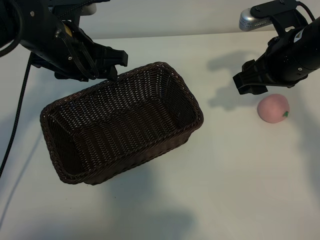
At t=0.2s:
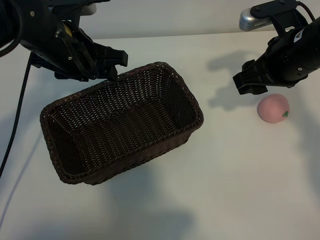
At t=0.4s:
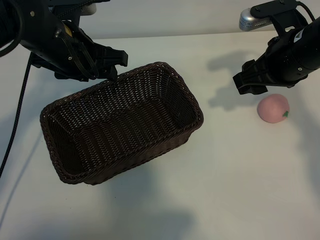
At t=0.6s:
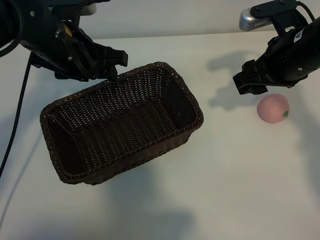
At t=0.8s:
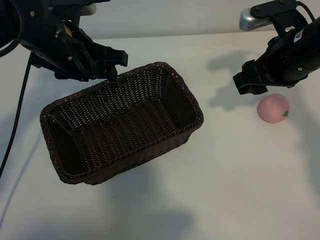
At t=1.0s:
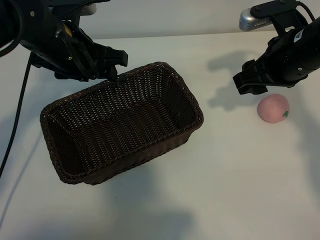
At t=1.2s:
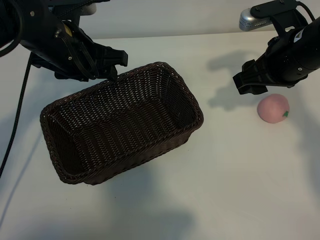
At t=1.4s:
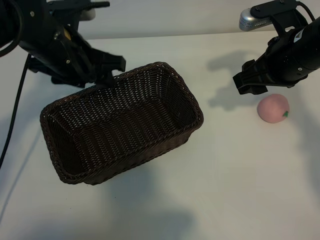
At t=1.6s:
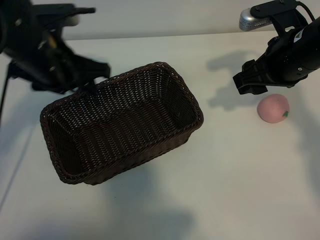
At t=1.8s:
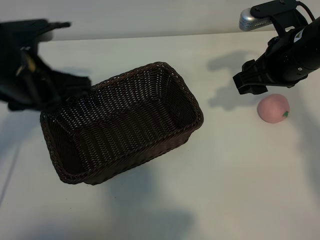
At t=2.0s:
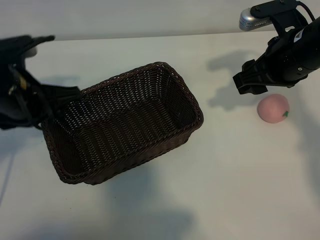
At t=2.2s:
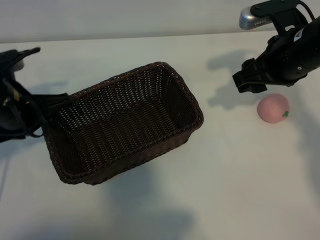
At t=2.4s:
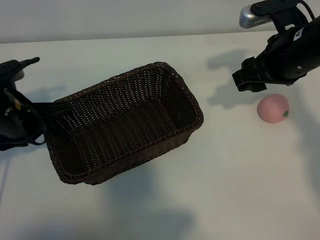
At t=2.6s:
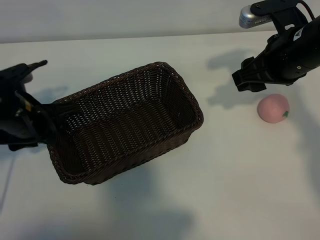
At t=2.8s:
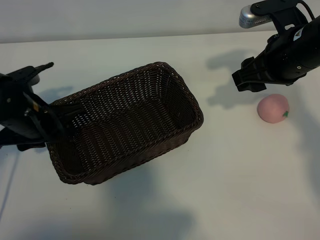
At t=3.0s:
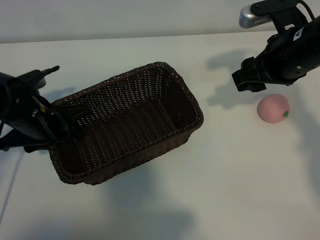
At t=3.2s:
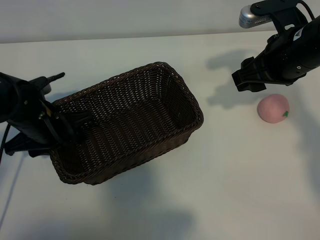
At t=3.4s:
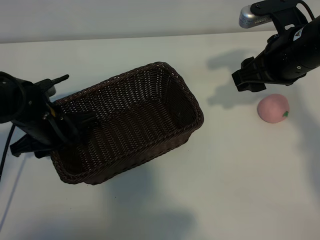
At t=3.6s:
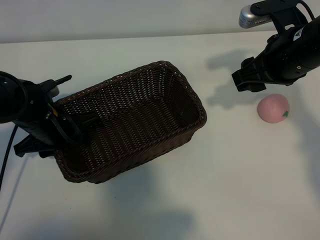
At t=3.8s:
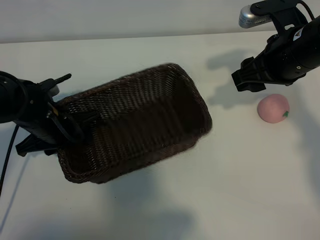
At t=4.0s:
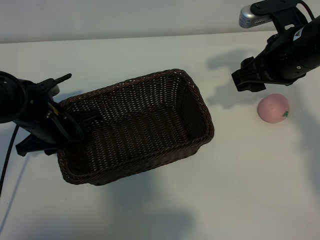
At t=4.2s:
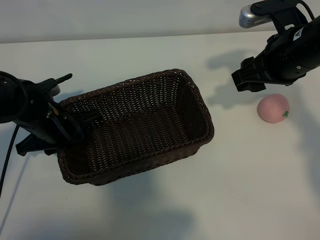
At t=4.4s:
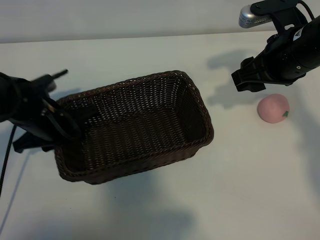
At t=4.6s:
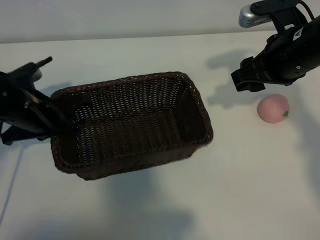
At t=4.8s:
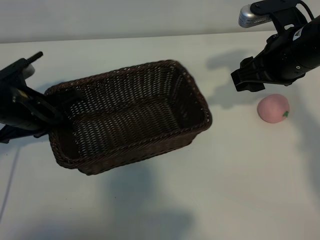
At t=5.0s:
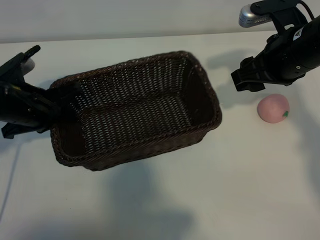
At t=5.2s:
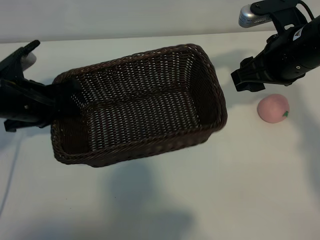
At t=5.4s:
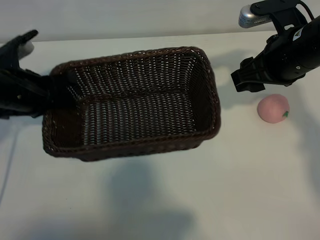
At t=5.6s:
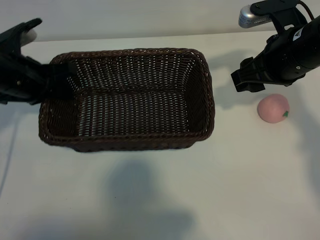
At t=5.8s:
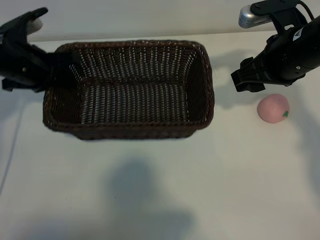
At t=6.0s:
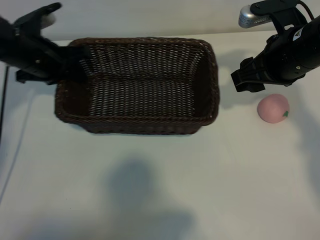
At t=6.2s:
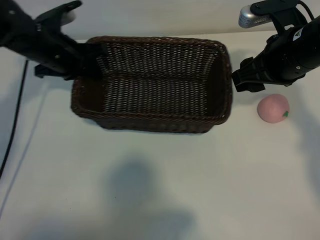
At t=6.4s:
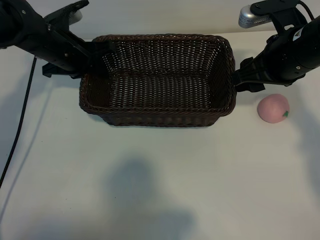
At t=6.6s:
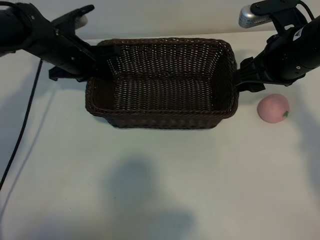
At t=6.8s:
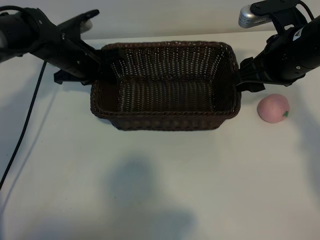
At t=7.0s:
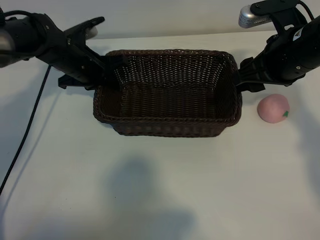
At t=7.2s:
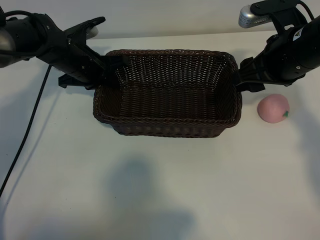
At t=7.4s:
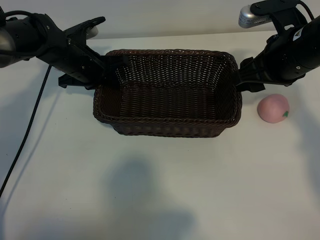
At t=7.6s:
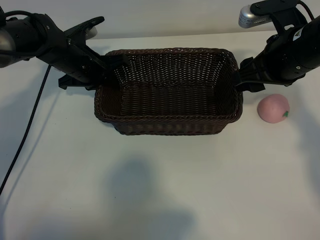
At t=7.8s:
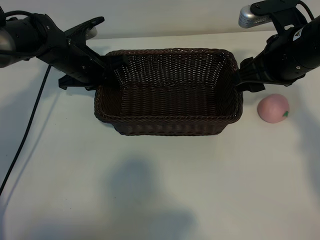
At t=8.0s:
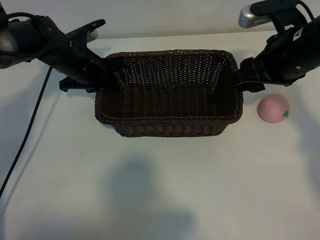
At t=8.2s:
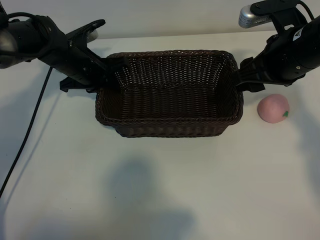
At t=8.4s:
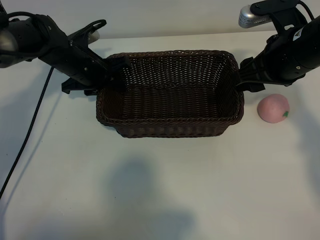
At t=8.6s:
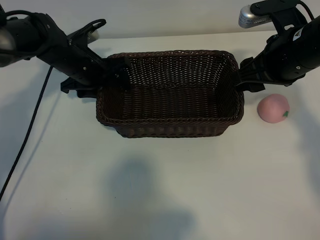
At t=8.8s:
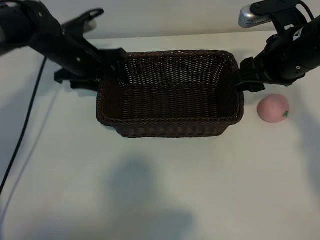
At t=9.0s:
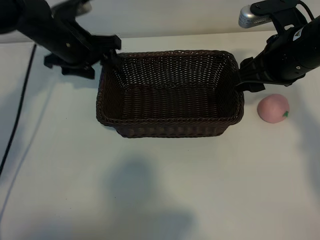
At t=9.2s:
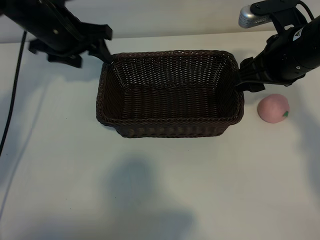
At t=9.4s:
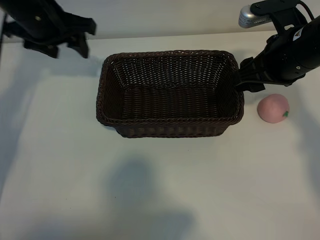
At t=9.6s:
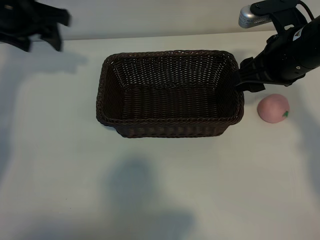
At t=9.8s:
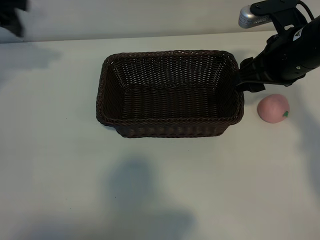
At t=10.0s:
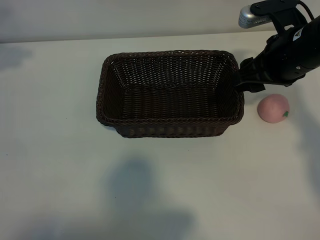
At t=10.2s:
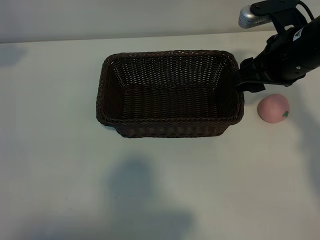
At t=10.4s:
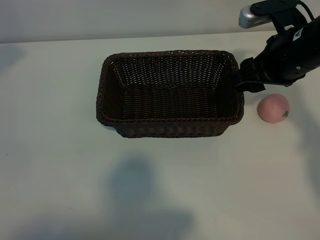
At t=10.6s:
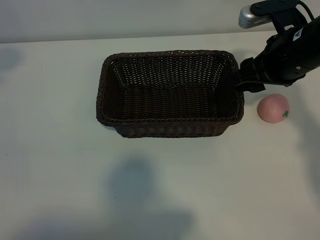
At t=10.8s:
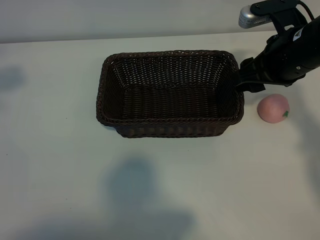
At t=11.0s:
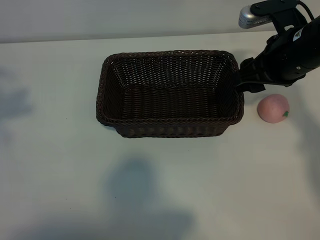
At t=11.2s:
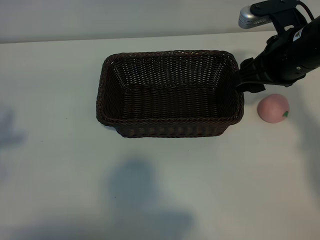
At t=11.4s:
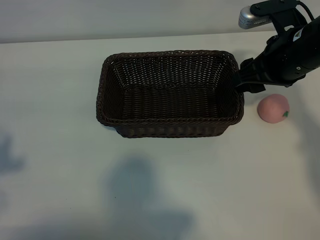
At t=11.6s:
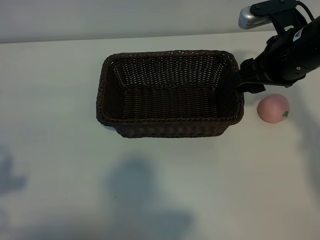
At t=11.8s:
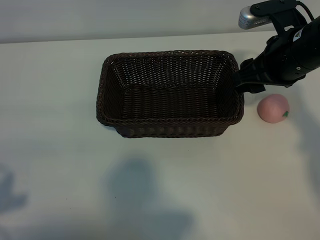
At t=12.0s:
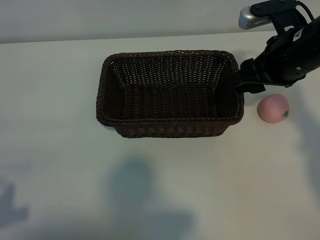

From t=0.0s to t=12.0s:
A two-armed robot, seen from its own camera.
Task of the whole recording: pick up the peach and put it into the basket.
Step, from t=1.4s to t=4.0s: Grasp the basket with left gripper.
Step, from t=4.2s to t=8.8s: Place the basket in the center of view with left gripper.

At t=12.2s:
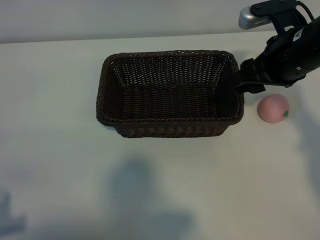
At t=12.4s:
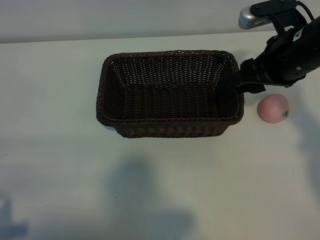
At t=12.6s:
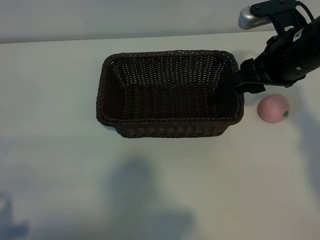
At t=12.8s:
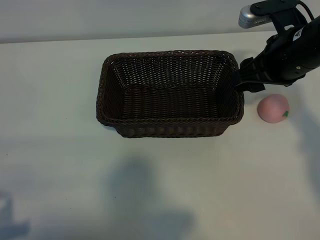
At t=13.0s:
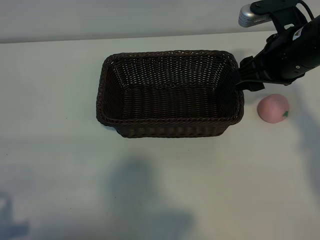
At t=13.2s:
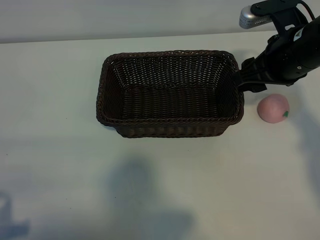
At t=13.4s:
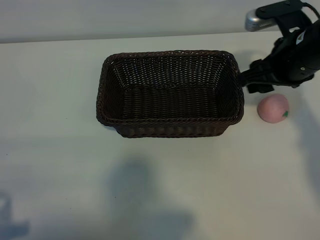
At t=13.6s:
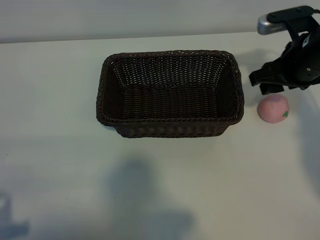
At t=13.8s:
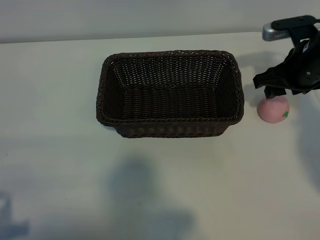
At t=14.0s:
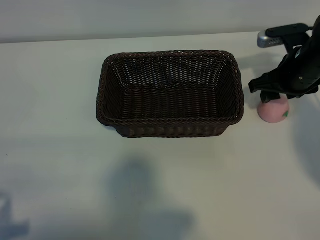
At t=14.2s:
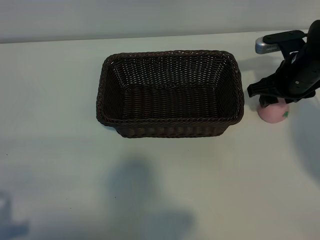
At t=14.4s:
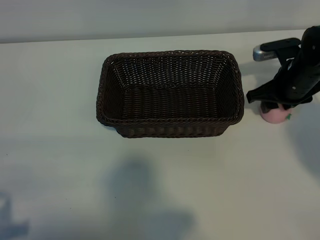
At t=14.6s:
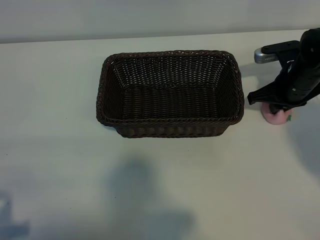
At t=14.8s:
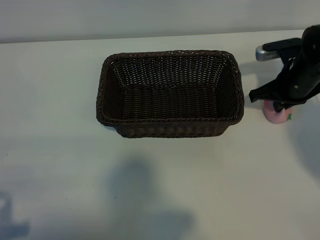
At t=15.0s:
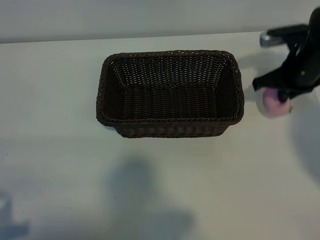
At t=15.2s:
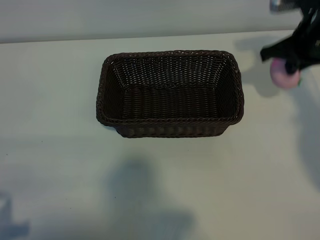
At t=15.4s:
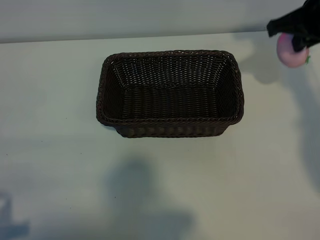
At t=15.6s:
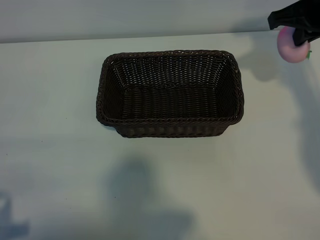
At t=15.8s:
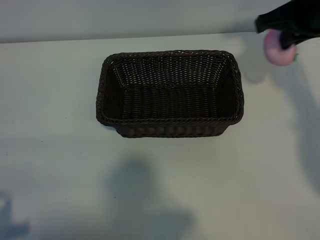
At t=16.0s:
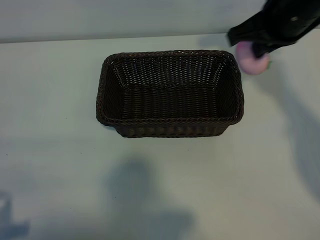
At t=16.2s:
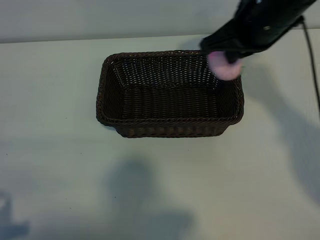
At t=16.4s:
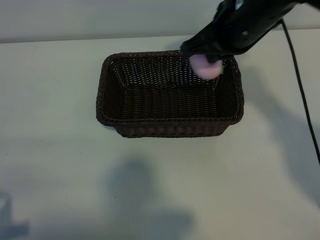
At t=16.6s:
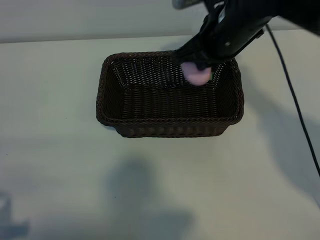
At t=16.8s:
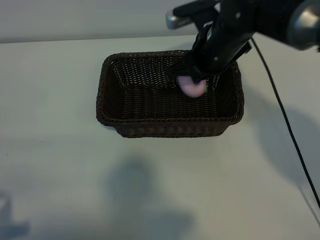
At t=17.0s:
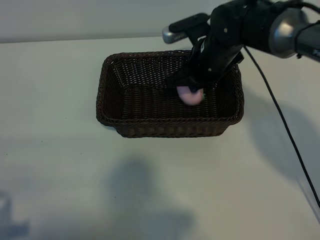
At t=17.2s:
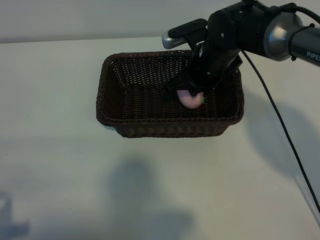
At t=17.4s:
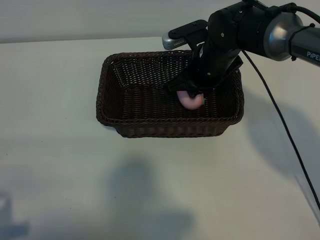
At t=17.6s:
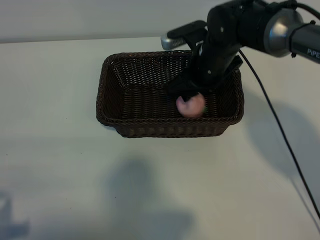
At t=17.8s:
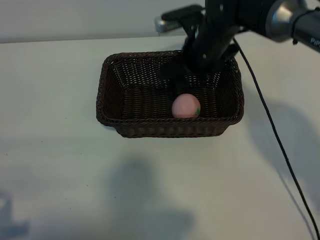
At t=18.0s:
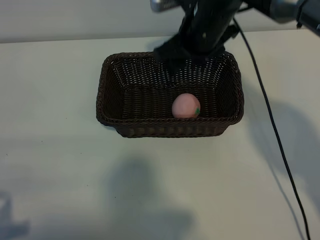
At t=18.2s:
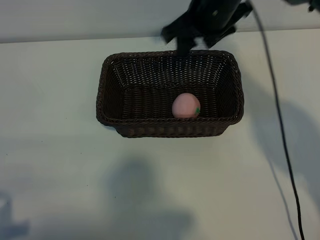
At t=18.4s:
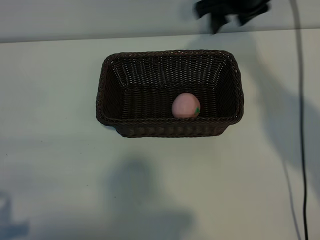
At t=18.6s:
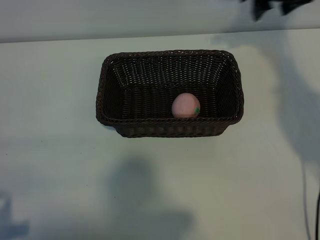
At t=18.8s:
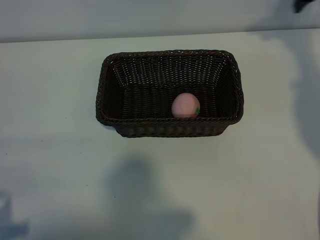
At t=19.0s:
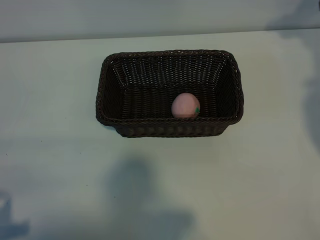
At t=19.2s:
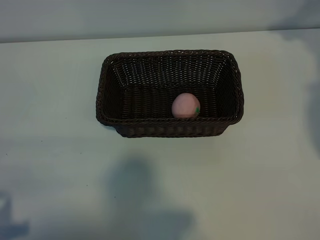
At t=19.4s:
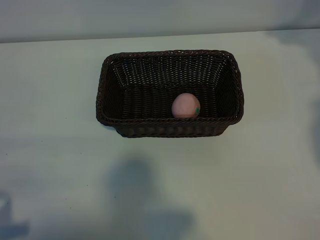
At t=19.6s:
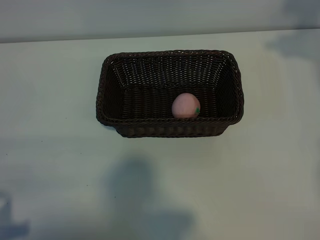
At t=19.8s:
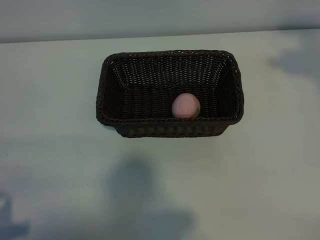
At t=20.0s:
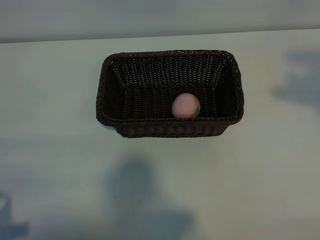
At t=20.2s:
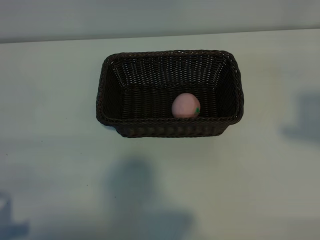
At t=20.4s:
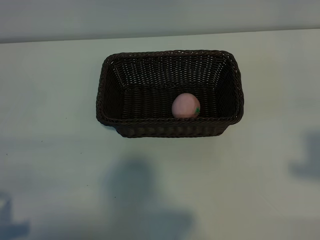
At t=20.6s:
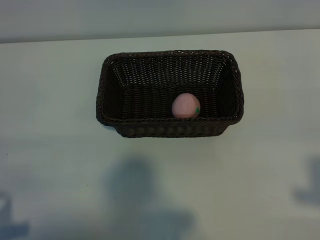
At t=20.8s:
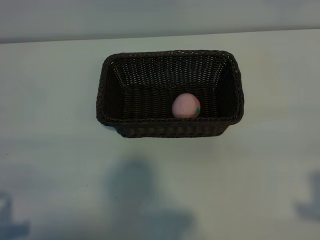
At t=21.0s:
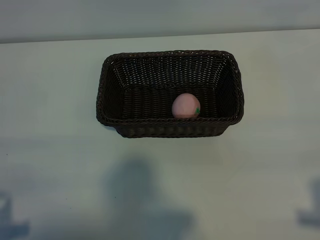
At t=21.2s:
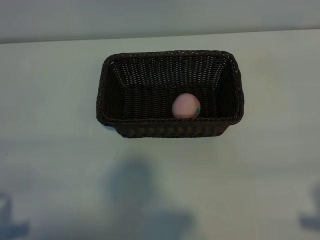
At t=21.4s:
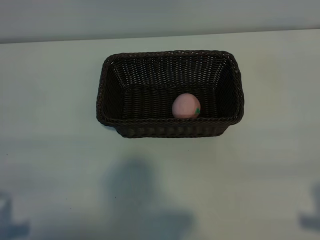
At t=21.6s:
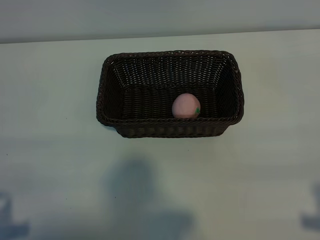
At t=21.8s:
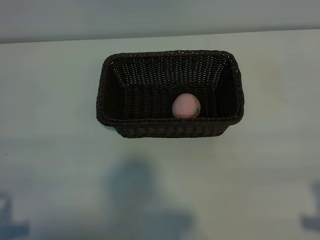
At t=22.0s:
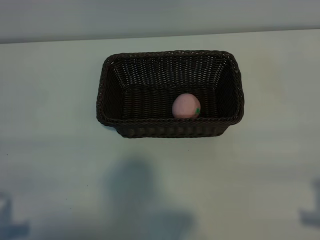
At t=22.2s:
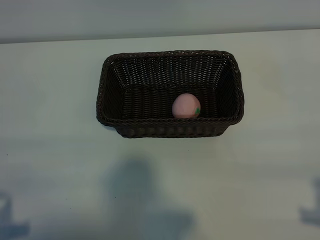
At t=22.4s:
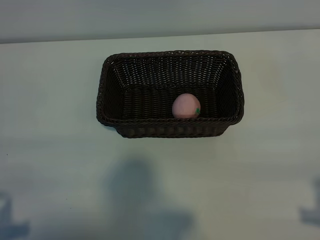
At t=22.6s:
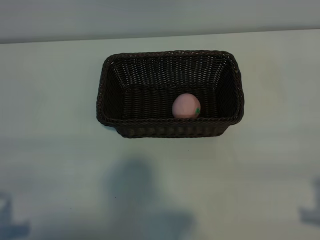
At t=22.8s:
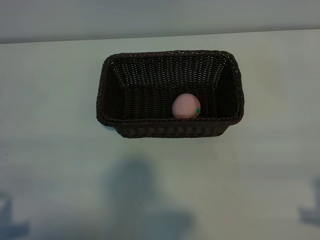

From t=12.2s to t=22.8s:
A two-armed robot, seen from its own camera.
Task of the whole recording: pick up the peach and put it into the basket.
Step, from t=12.2s to t=14.6s: Grasp the peach with right gripper.
Step, from t=14.8s to t=17.6s: Place the peach in the basket with right gripper.
